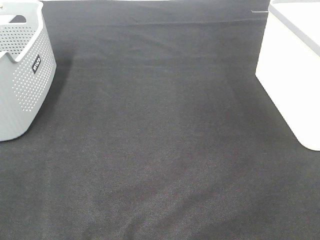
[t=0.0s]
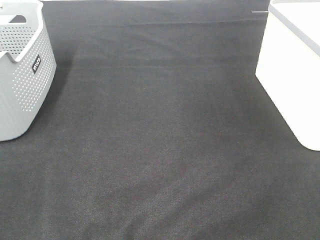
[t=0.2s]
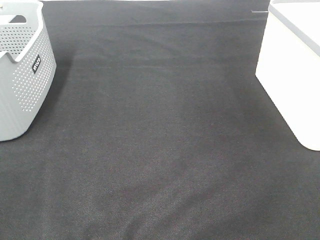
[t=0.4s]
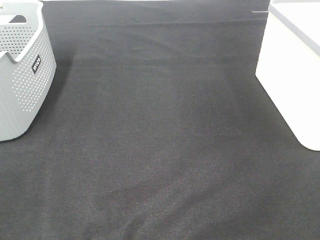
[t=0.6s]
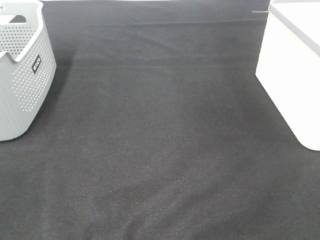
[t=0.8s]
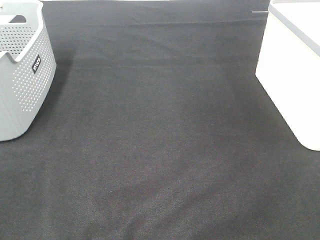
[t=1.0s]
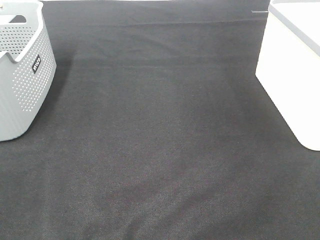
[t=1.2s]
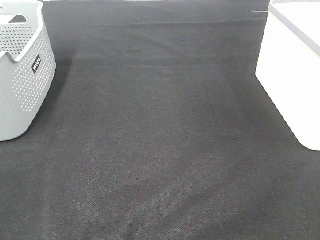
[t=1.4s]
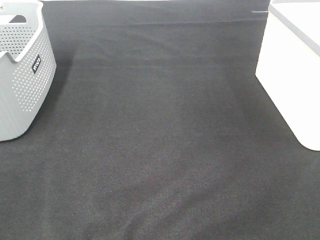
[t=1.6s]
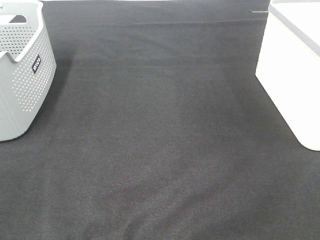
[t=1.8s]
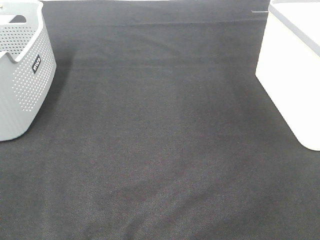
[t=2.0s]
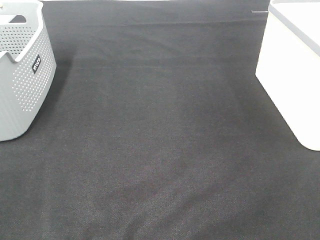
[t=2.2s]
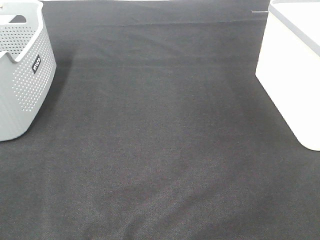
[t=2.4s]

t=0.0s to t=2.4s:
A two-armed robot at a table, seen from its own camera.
t=1.2s to t=2.4s: The two grippers keep their place.
